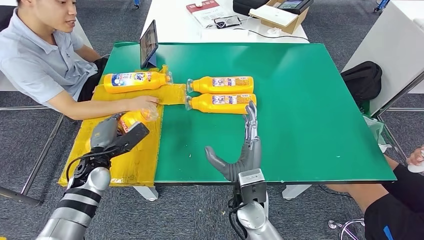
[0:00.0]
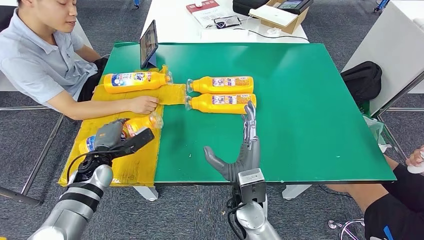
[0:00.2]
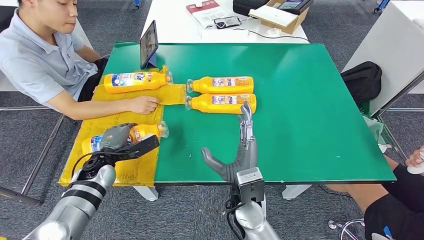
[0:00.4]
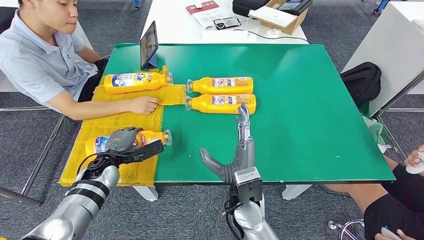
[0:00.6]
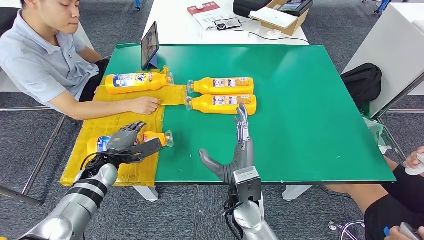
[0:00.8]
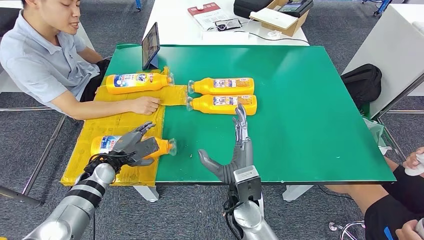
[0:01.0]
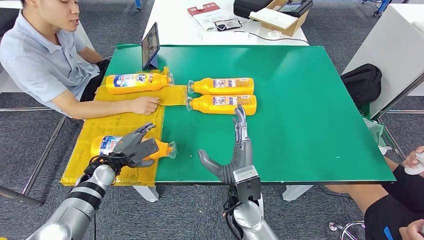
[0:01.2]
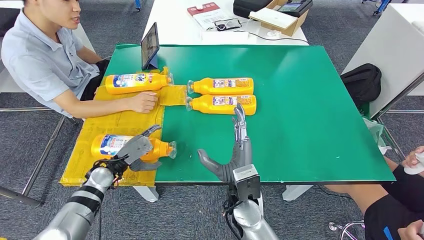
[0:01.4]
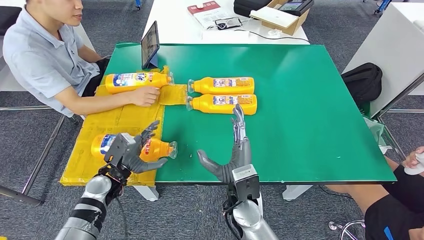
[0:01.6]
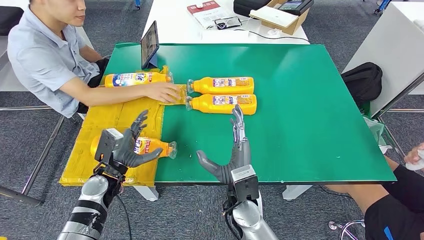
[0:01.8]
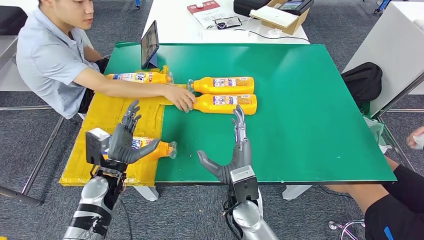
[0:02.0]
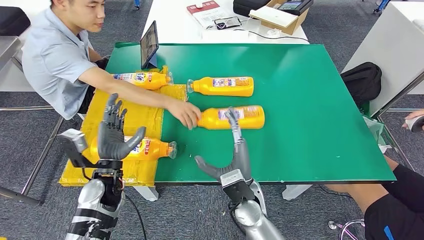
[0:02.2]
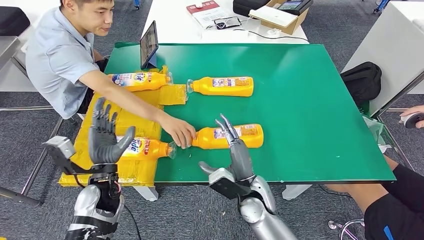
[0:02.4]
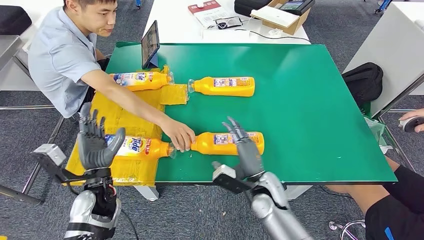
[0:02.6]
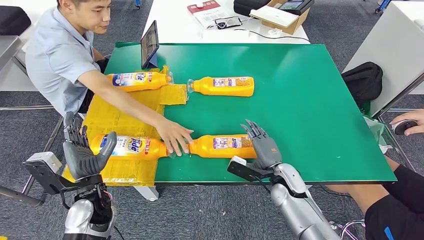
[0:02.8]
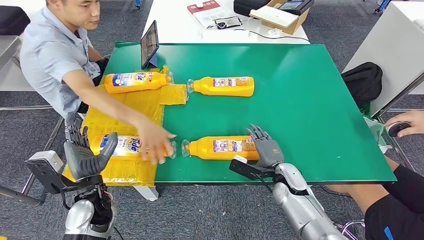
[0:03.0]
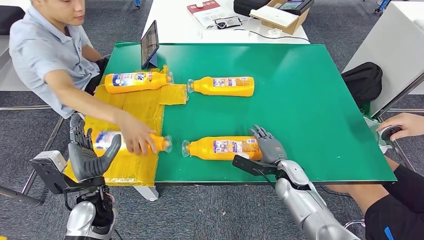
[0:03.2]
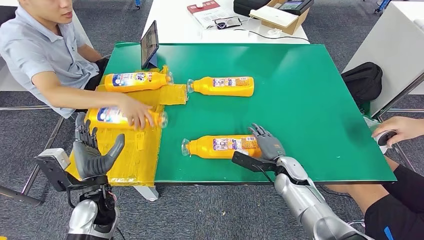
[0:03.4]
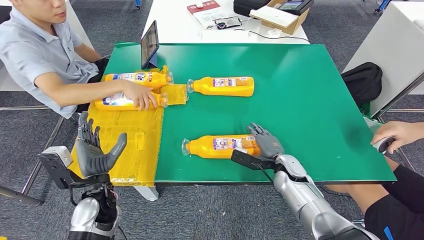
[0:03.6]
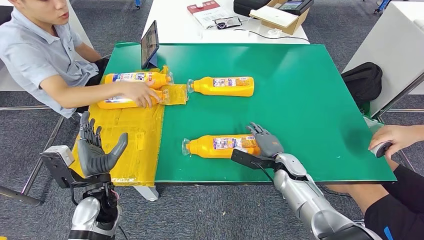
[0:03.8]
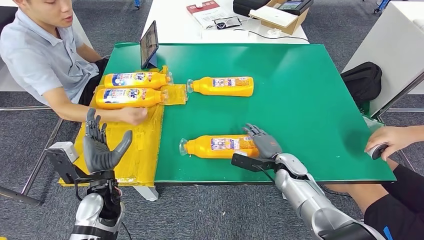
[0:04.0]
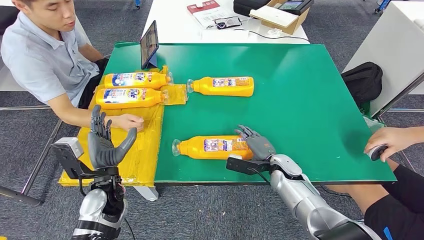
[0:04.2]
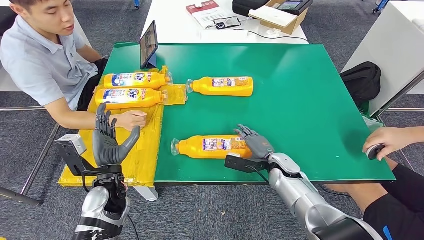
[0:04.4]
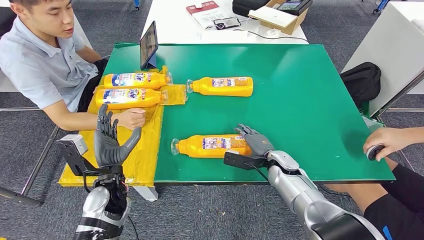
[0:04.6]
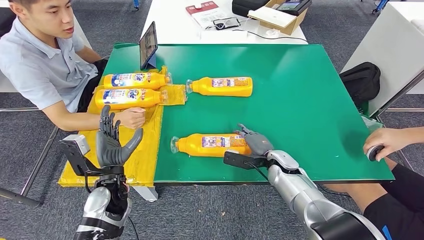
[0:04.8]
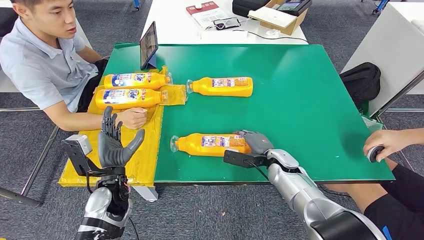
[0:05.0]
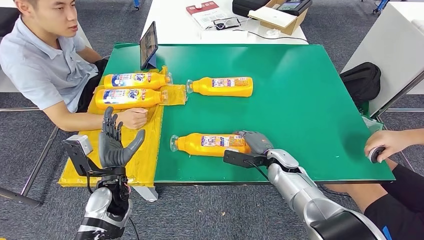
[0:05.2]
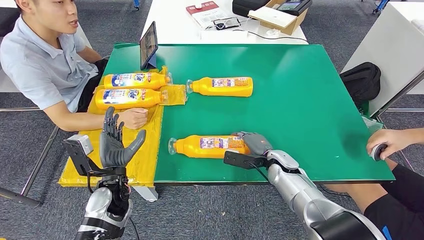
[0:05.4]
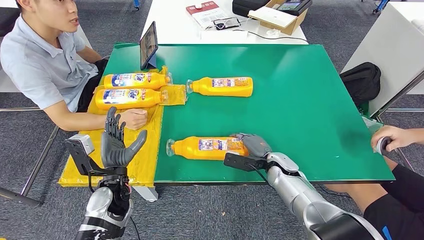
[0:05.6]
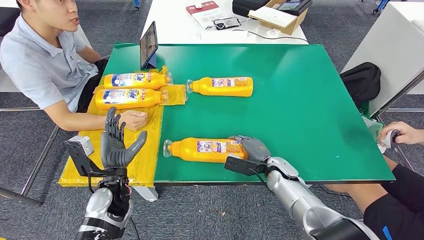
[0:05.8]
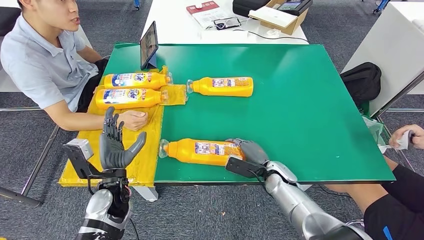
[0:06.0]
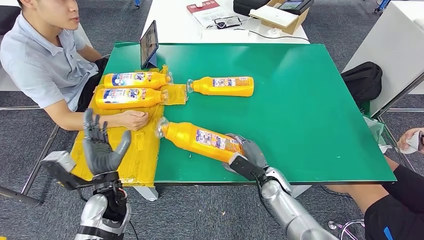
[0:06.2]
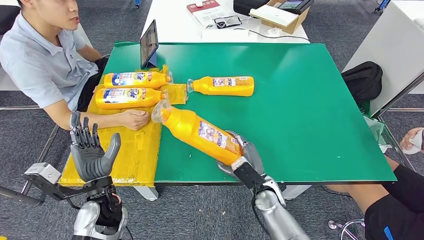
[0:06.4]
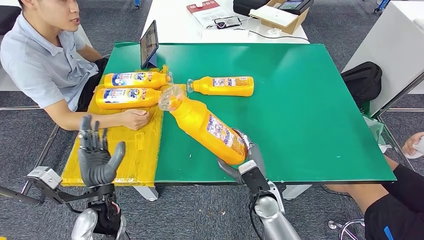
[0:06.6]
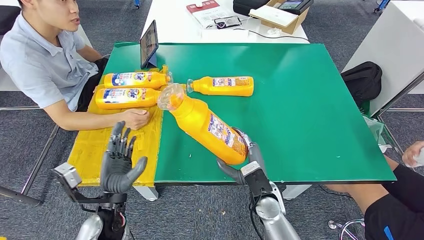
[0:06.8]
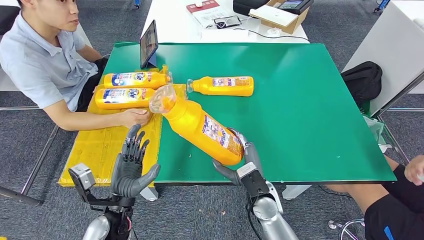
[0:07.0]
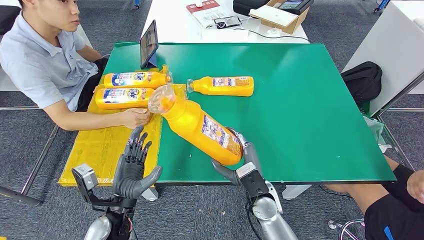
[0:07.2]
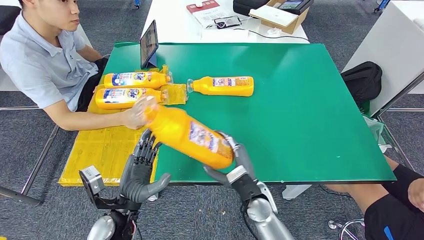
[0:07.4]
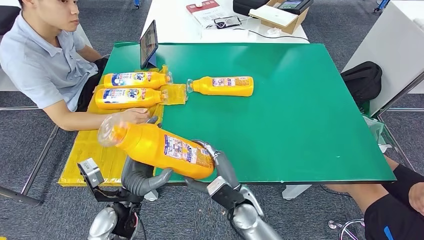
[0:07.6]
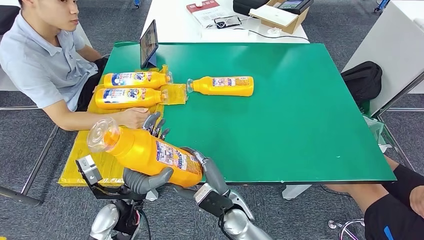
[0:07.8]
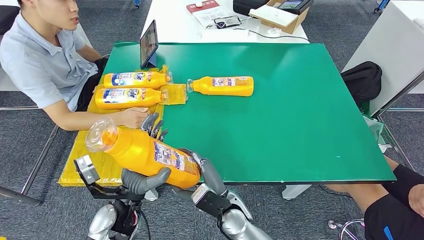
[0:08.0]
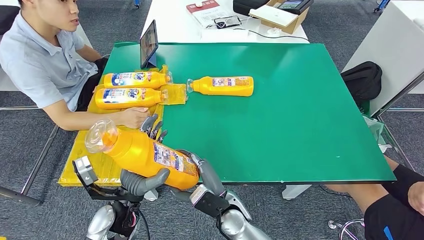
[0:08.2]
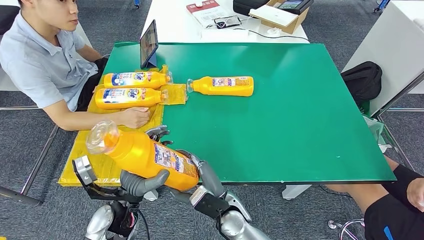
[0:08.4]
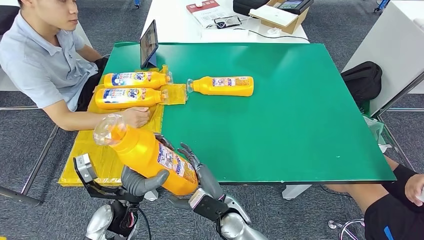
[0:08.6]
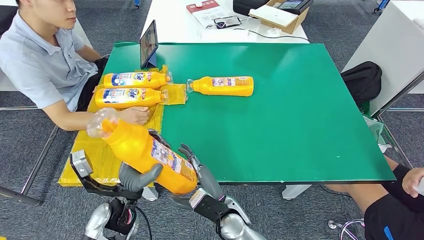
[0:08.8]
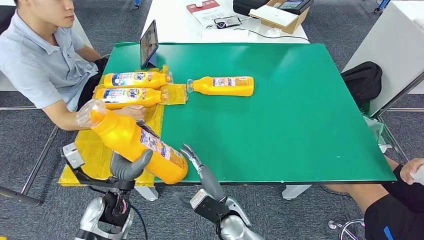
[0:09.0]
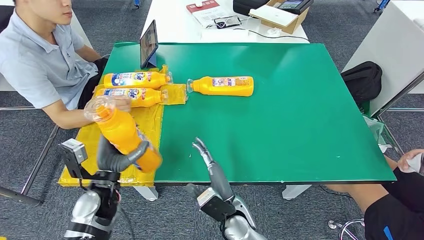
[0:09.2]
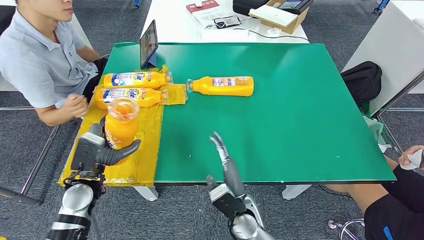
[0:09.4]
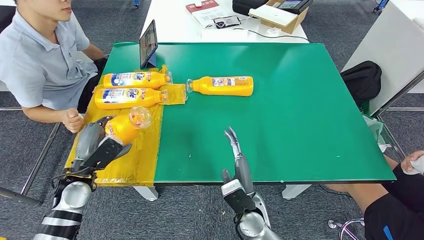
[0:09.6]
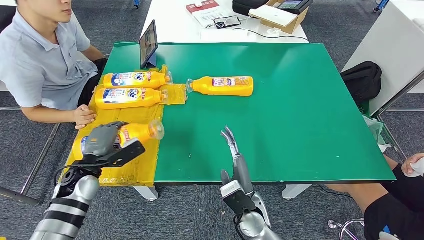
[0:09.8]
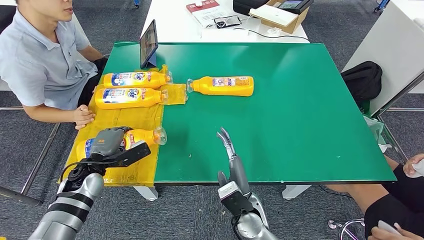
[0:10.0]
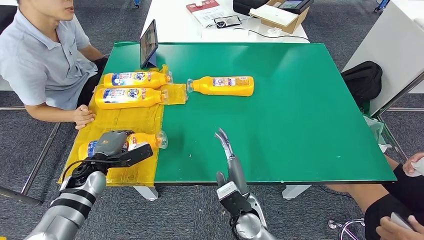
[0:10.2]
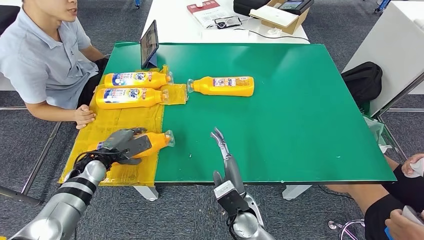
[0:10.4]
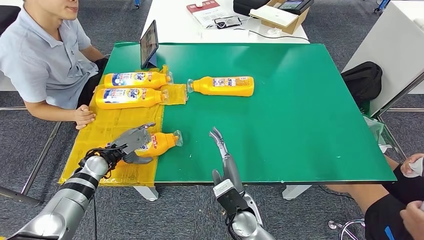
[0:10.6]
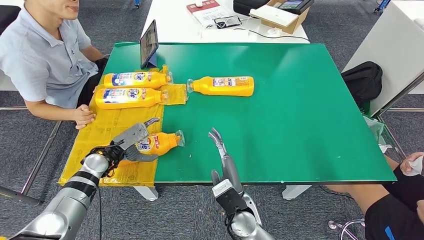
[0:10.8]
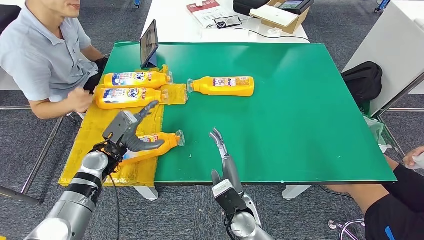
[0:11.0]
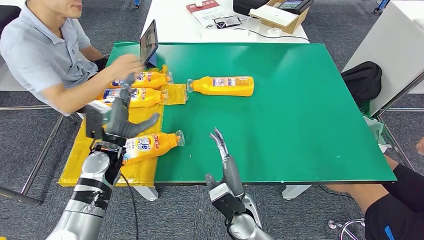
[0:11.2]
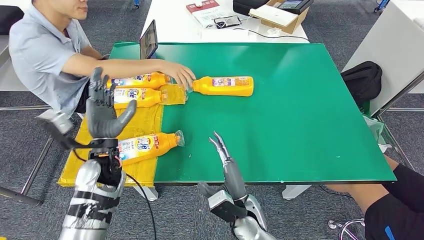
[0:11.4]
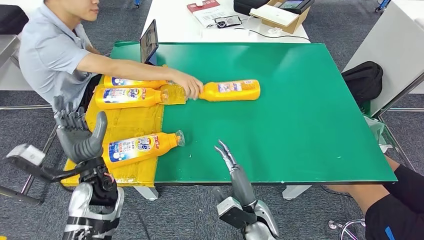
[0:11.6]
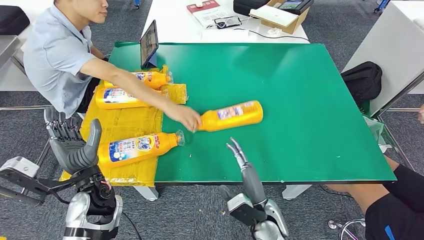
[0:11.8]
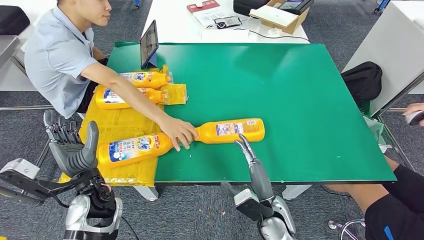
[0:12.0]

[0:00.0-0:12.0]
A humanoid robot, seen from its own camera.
Step, 0:01.4 to 0:08.0: Pick up the fast-moving consumer goods bottle from the table.
Step, 0:08.2 to 0:11.6: Flip the fast-moving consumer goods bottle to the front side.
0:04.4 to 0:06.0: The hands move only a little.
0:06.0 to 0:07.6: The right hand shifts about 15 cm to the left and backward. Meanwhile the left hand moves roughly 5 cm.
0:07.6 to 0:09.0: The hands stay close to where they were, moving slightly.
0:09.0 to 0:10.4: The left hand shifts about 15 cm forward and to the left.

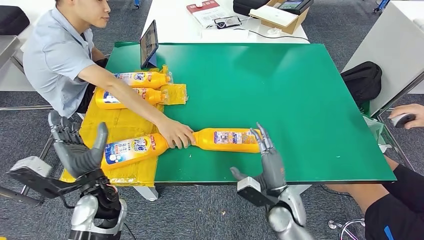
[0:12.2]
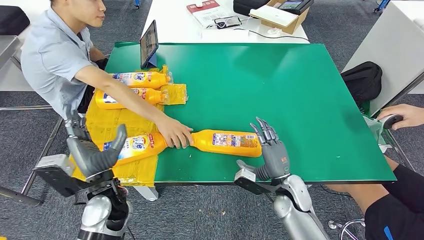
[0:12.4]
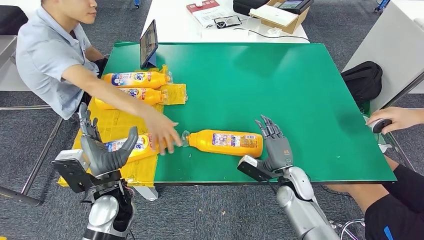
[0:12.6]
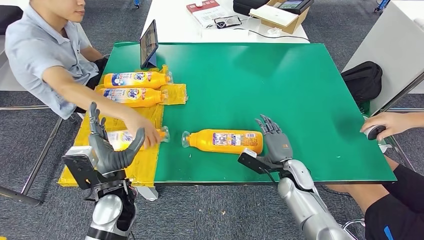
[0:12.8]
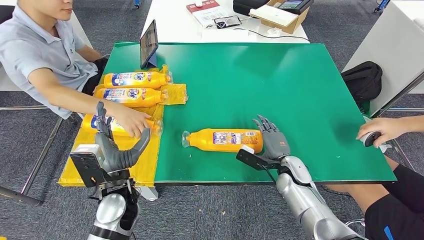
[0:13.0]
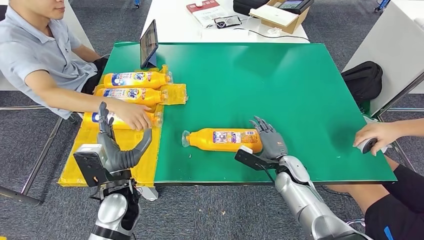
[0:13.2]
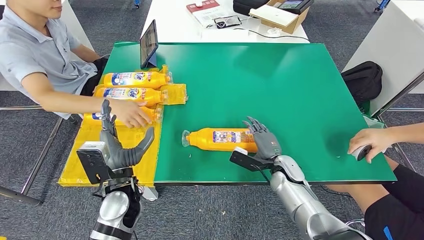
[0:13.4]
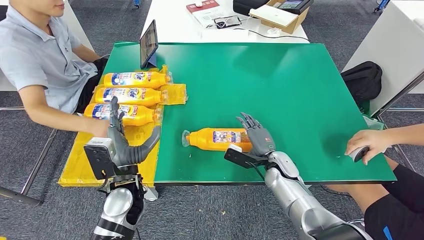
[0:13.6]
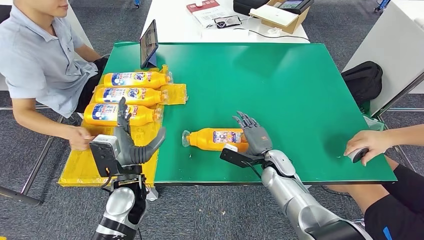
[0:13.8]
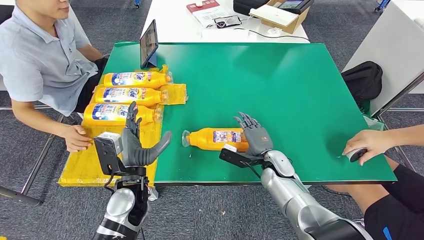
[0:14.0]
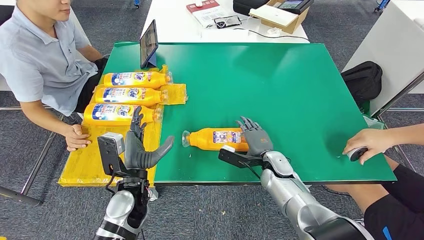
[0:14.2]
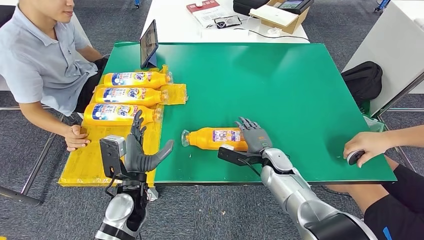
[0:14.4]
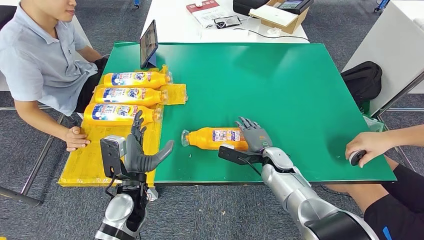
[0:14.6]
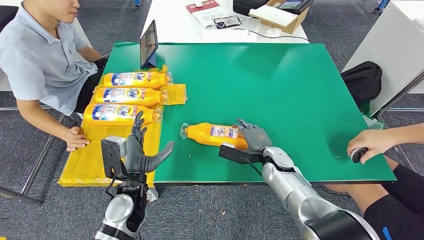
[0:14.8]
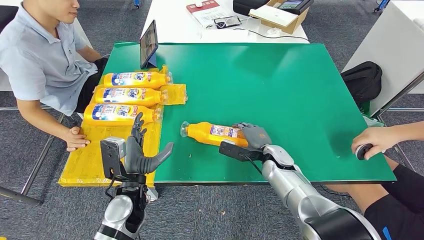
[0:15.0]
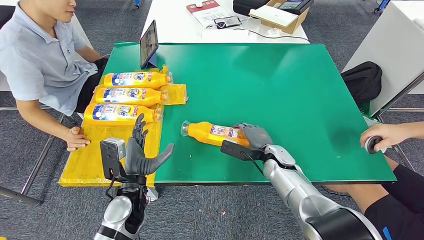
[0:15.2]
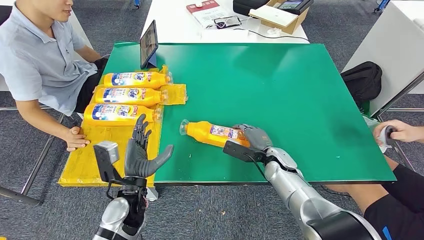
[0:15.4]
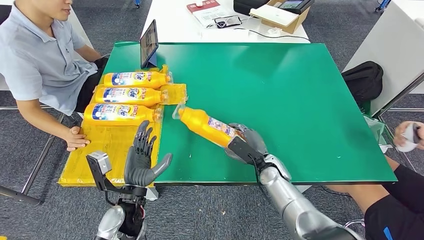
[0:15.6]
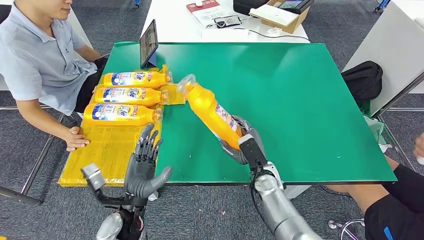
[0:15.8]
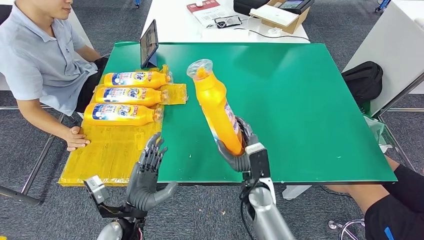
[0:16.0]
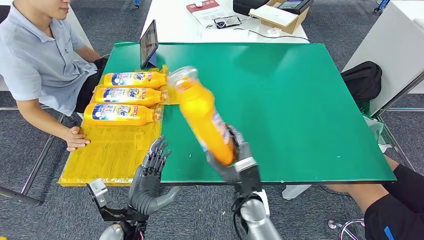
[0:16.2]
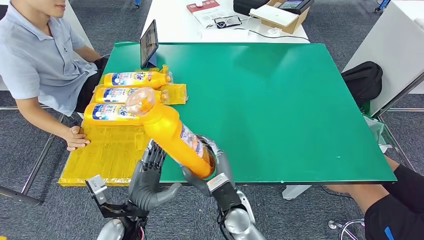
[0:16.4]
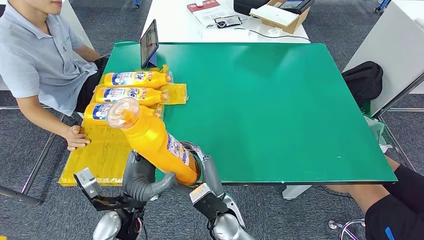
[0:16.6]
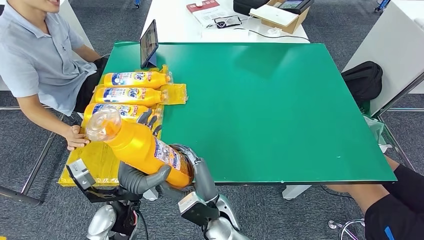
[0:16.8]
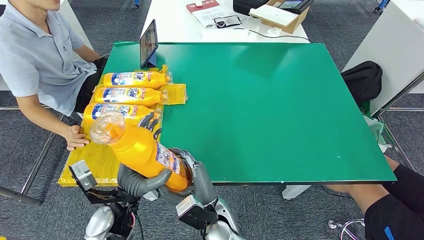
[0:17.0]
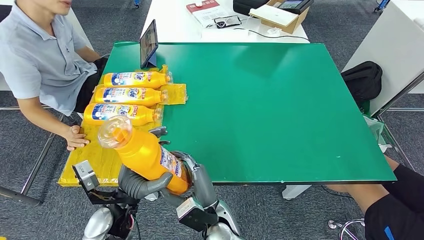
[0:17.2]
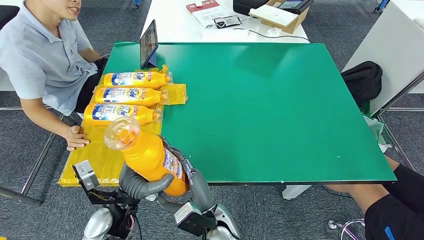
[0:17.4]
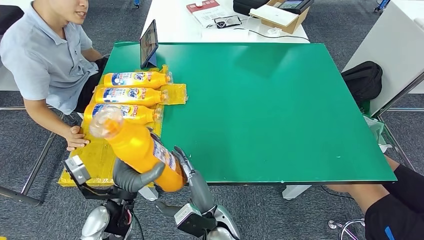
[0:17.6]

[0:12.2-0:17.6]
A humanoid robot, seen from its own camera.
Step, 0:12.2 to 0:17.6: Pick up the fast-moving consumer goods bottle from the table.
0:13.6 to 0:15.0: The hands move only a little.
0:15.0 to 0:16.2: The left hand shifts about 5 cm backward. Meanwhile the right hand is displaced backward and to the left by about 15 cm.
0:16.2 to 0:17.6: The left hand shifts by approximately 5 cm, while the right hand is displaced to the left by some 10 cm.
